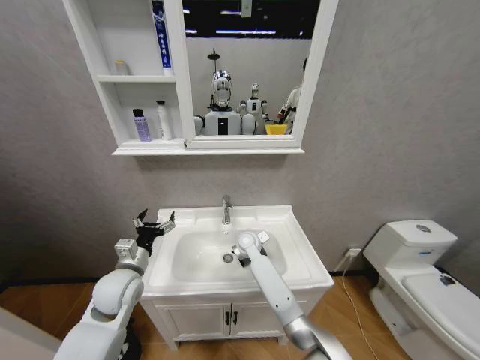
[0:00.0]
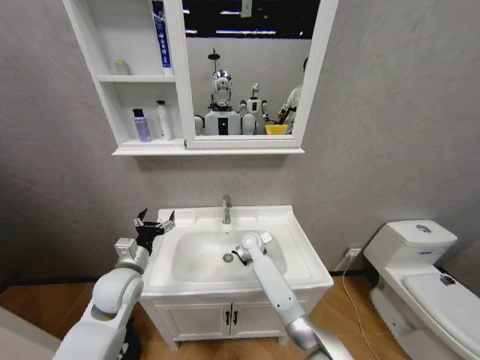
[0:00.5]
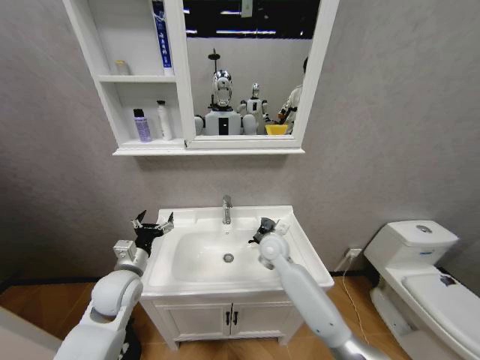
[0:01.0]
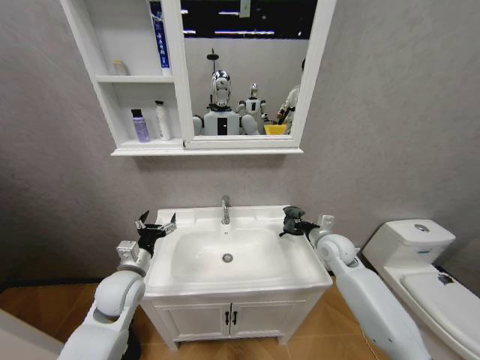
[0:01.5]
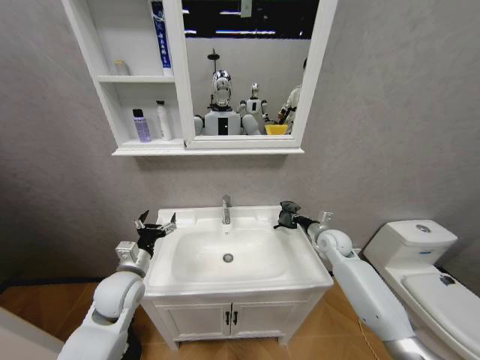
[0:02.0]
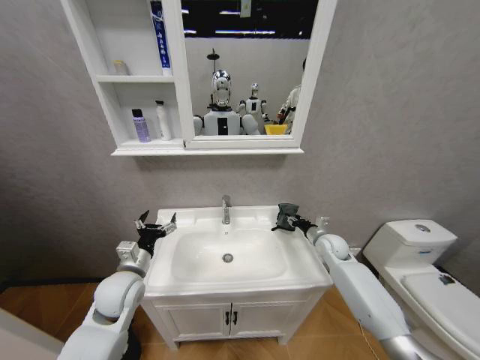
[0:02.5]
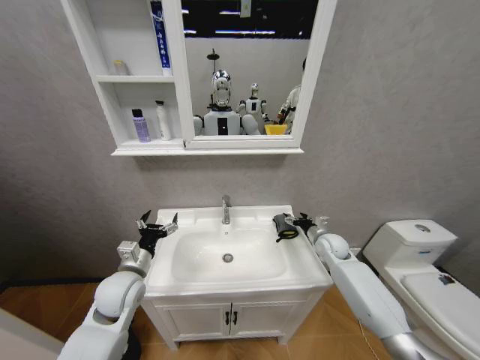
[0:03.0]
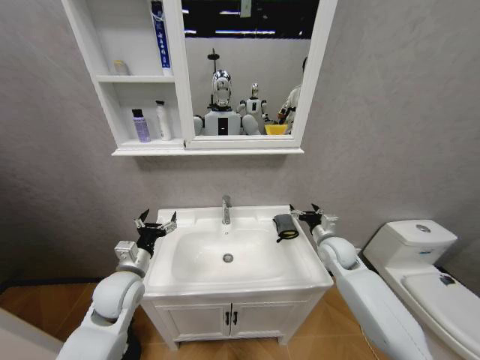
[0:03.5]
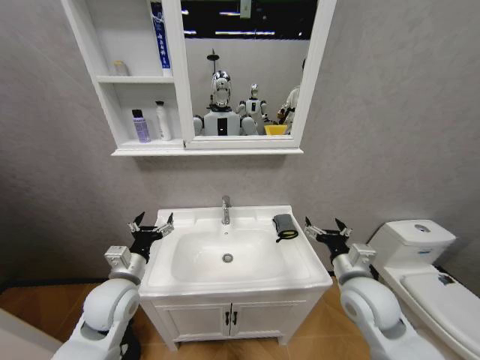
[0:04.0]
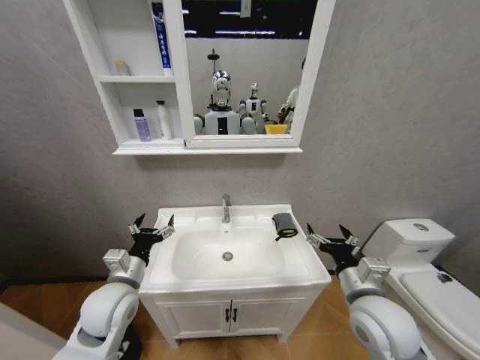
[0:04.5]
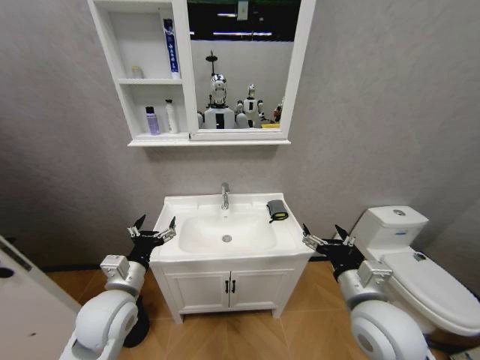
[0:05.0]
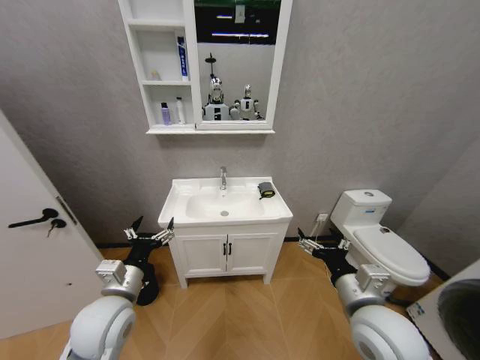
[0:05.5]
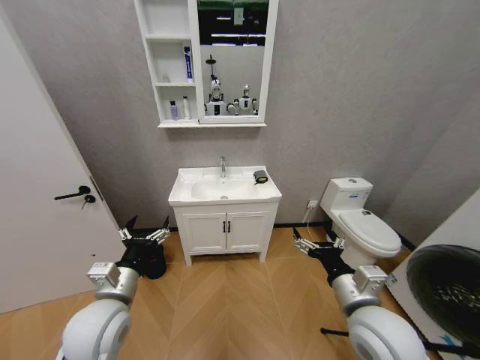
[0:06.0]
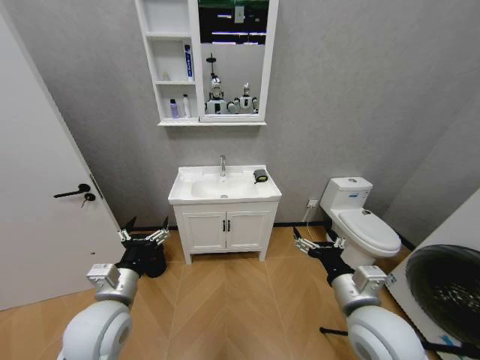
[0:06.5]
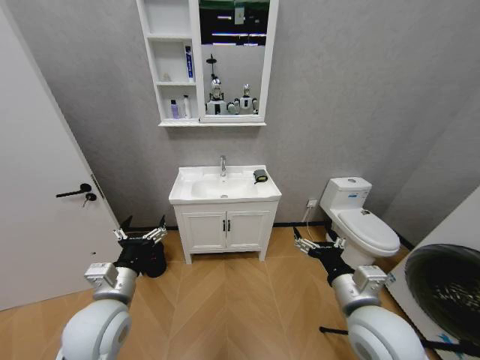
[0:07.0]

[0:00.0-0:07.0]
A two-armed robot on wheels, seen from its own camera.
Task of the whole recording: Move facial cleanser and shampoo from washbasin to cabinet, then wipe washbasin with towel.
0:00.0 to 0:02.0: The right gripper is displaced to the right by about 30 cm, and closes up.
0:02.0 to 0:03.5: The right gripper opens up.
0:03.5 to 0:05.0: The left gripper travels backward by about 5 cm; the right gripper travels backward by approximately 25 cm.
